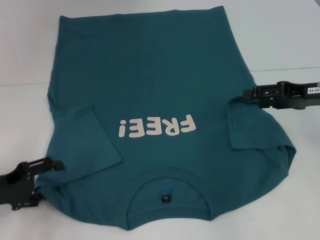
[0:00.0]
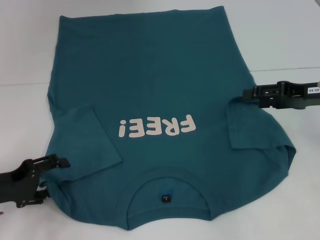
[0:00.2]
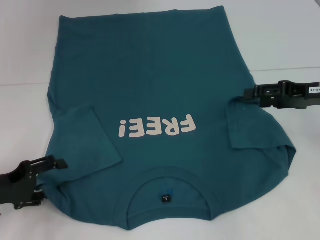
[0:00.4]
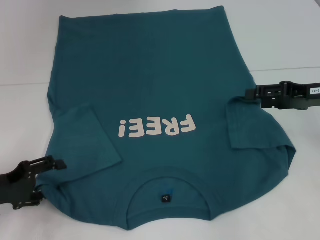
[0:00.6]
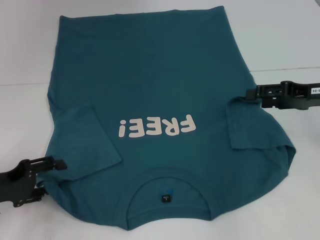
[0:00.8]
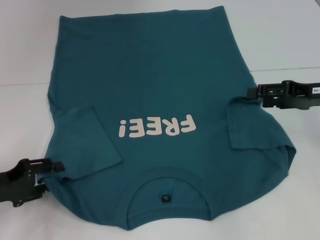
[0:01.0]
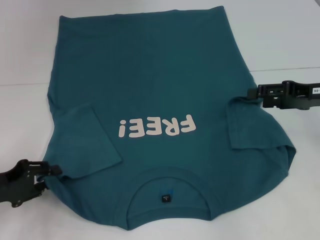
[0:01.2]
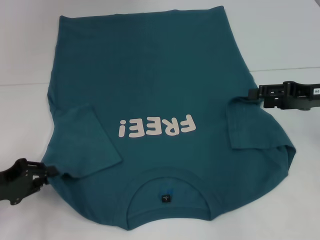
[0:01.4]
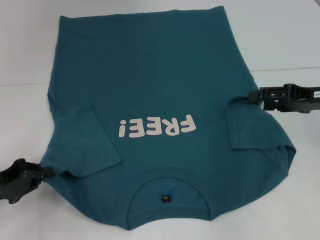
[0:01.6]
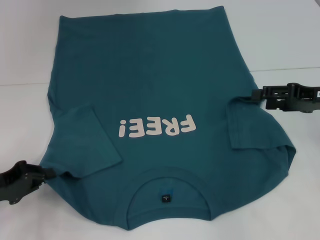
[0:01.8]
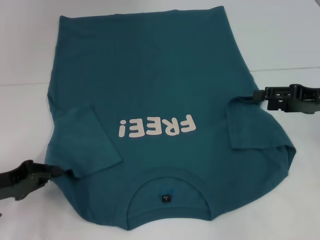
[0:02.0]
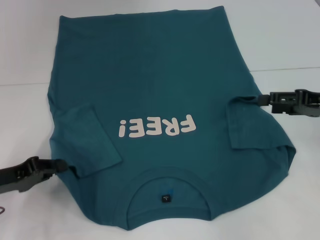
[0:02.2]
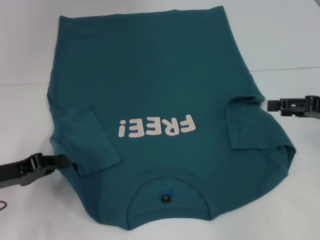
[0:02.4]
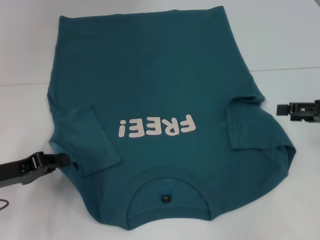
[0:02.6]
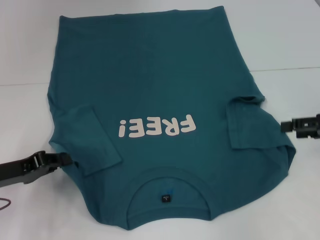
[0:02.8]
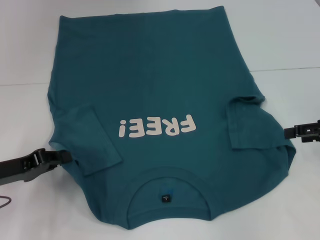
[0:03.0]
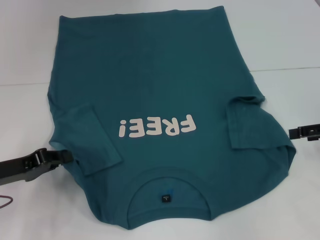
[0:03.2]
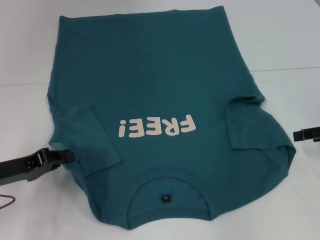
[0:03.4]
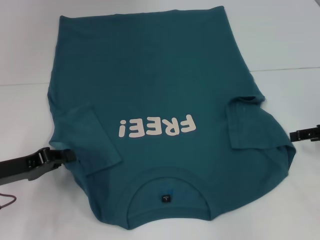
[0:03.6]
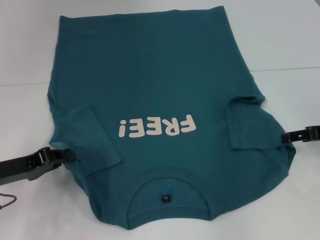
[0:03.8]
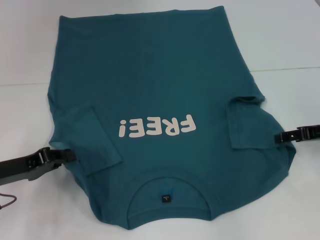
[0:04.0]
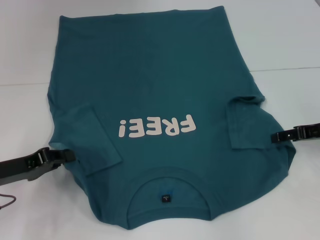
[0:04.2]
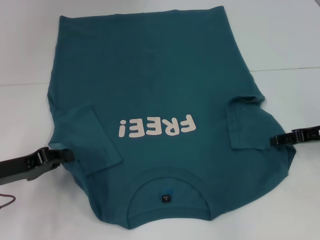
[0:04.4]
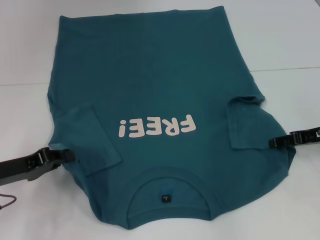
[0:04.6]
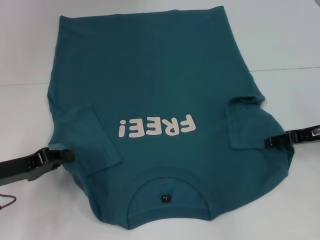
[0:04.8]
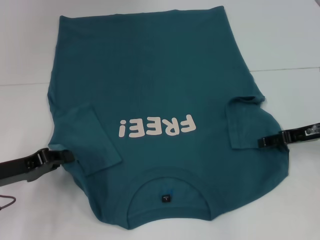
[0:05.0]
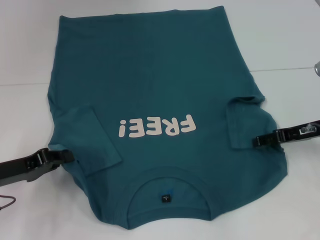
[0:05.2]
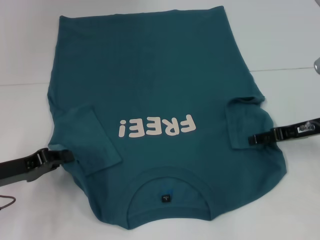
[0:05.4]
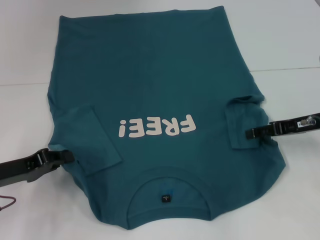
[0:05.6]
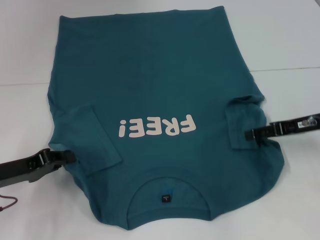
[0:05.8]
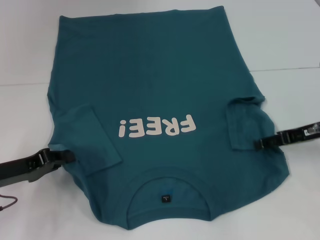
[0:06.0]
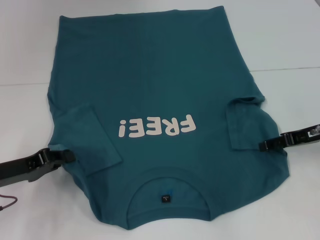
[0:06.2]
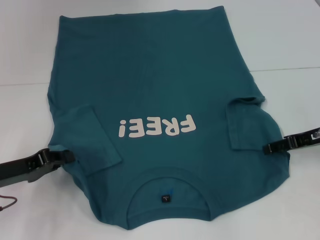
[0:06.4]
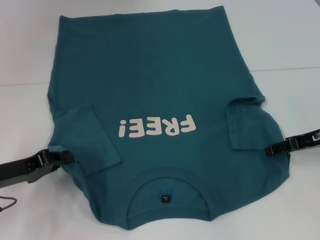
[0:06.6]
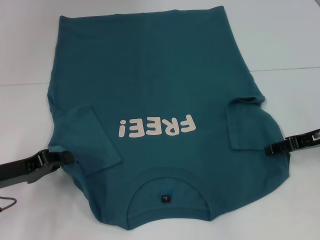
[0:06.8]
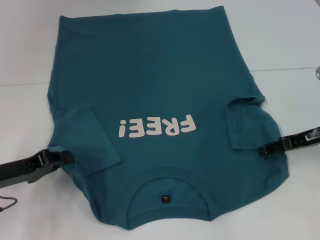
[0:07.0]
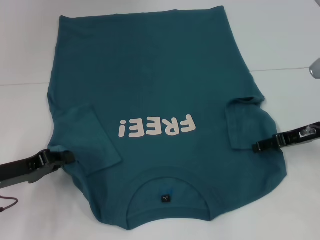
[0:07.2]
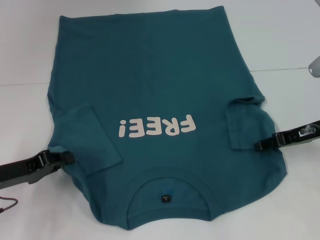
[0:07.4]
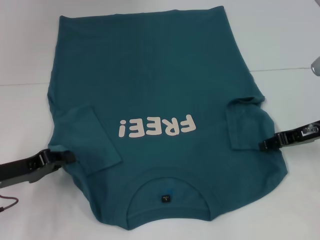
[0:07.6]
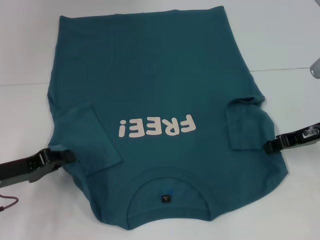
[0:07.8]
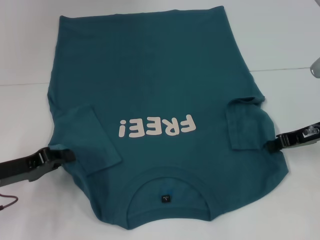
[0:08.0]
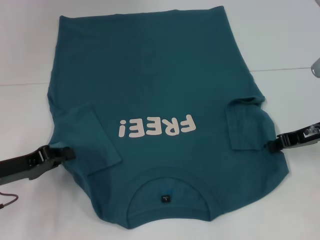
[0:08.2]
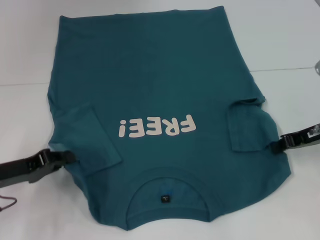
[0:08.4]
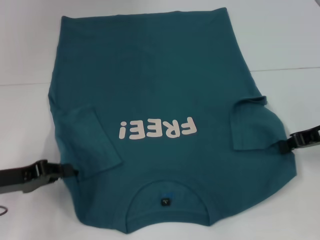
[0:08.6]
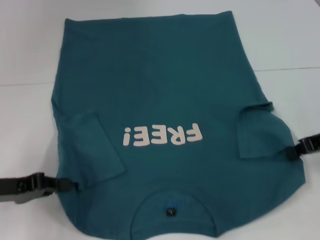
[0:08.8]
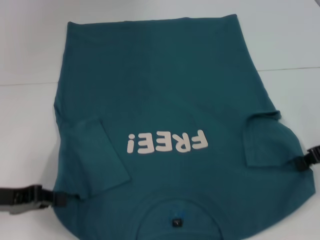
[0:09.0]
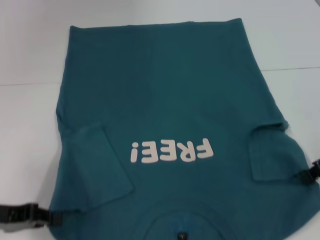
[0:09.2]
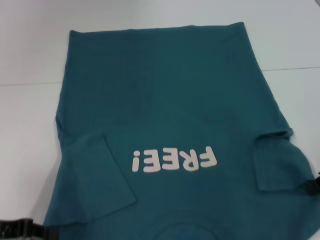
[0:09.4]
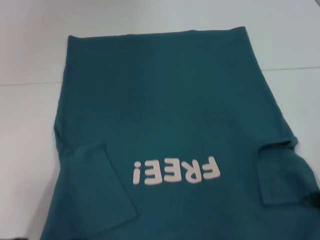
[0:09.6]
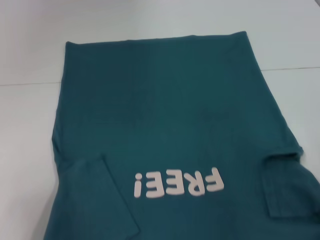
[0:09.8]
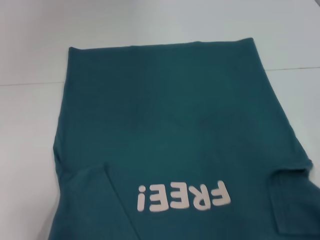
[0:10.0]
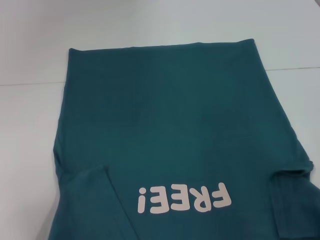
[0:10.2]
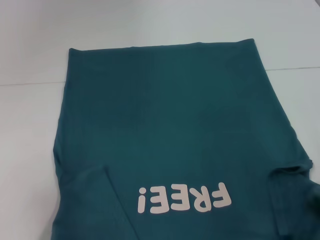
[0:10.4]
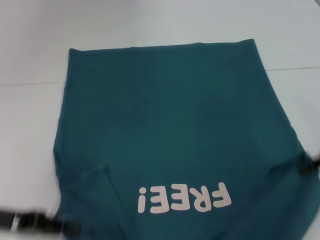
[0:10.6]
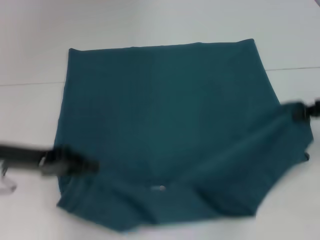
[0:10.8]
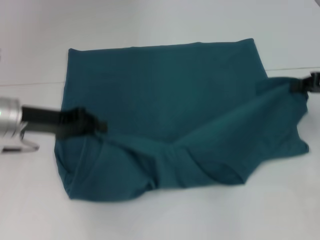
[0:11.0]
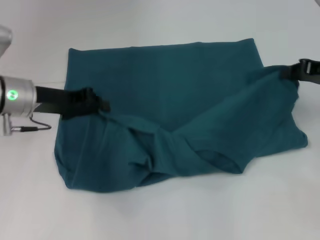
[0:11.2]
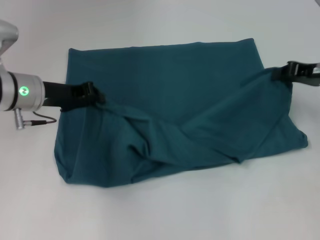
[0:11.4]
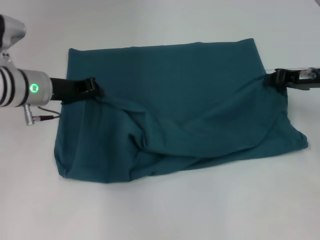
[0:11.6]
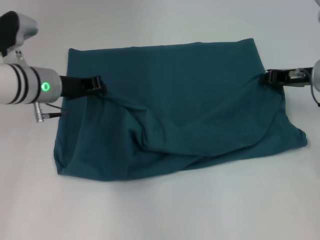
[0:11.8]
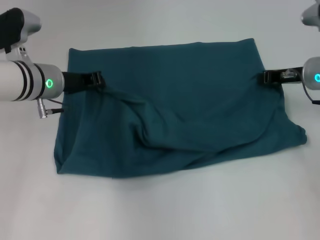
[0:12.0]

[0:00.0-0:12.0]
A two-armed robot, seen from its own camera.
Step, 0:01.6 to 0:08.4: Grab the bottom right corner with your right hand.
0:00.0 to 0:01.6: The left gripper closes.
0:01.6 to 0:03.0: The right gripper moves some 5 cm.
0:03.0 to 0:04.4: The right gripper changes place by about 5 cm.
0:04.4 to 0:06.0: The grippers move only a little.
0:06.0 to 0:07.6: The two grippers keep their place.
0:07.6 to 0:09.0: The right gripper moves approximately 5 cm, and closes.
0:09.0 to 0:10.4: The left gripper goes approximately 5 cm backward. Meanwhile the right gripper ends up about 5 cm from where it was.
0:10.4 to 0:12.0: The left gripper travels forward and to the right by about 25 cm. The right gripper moves forward and to the left, approximately 15 cm.

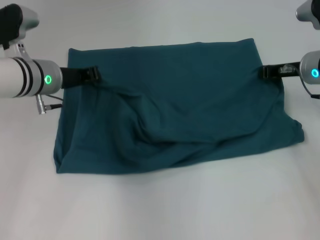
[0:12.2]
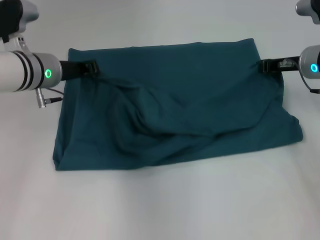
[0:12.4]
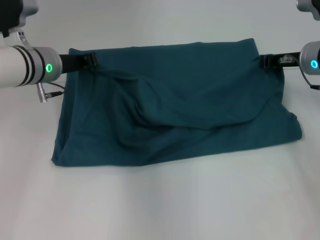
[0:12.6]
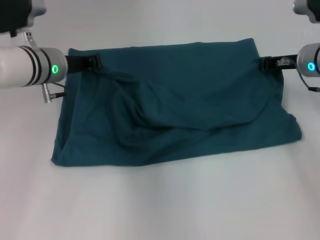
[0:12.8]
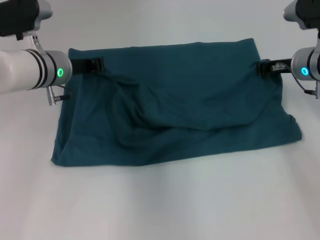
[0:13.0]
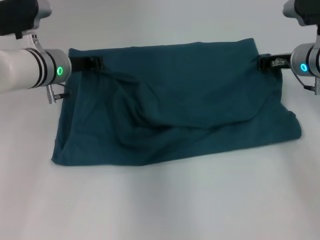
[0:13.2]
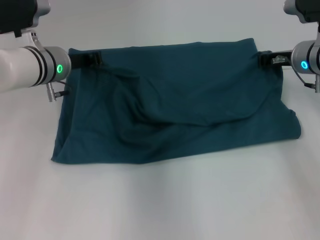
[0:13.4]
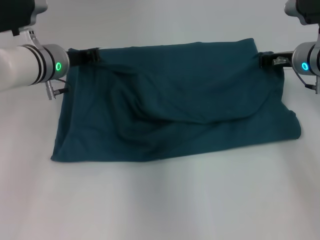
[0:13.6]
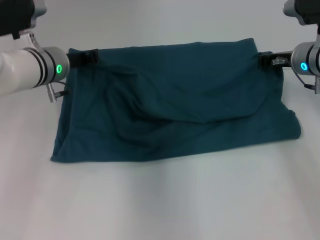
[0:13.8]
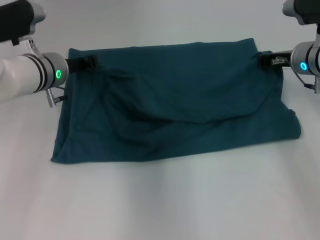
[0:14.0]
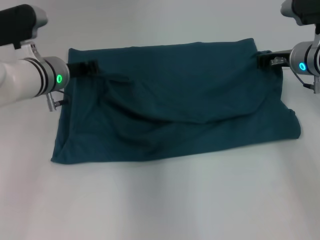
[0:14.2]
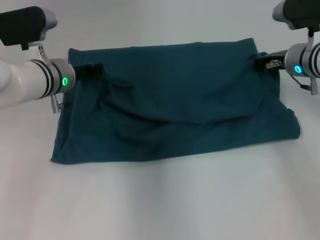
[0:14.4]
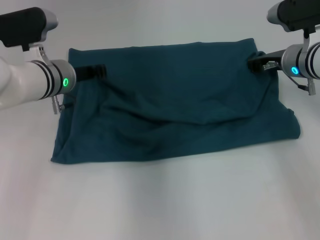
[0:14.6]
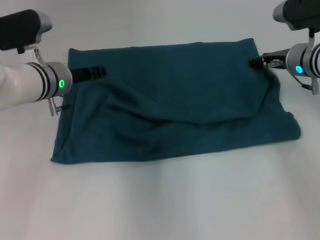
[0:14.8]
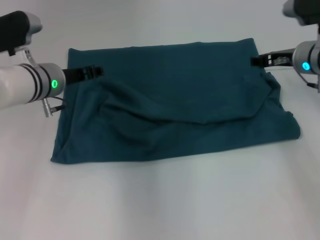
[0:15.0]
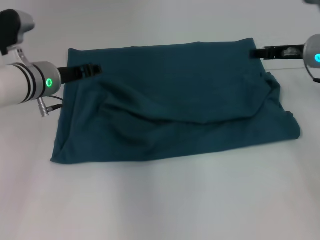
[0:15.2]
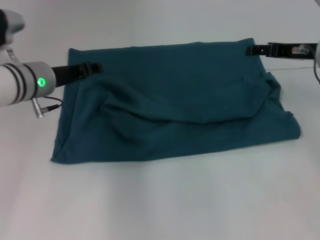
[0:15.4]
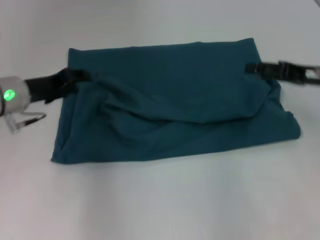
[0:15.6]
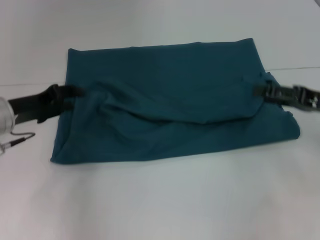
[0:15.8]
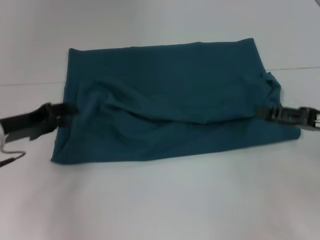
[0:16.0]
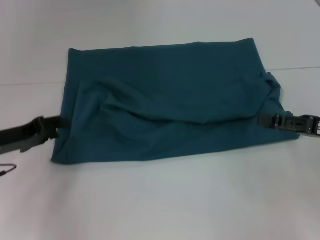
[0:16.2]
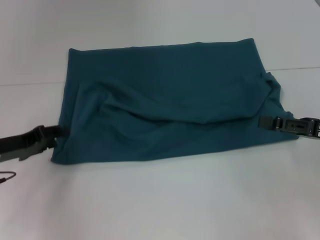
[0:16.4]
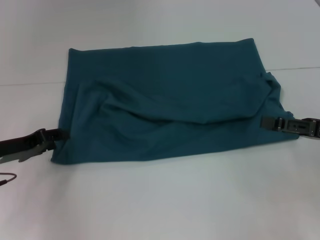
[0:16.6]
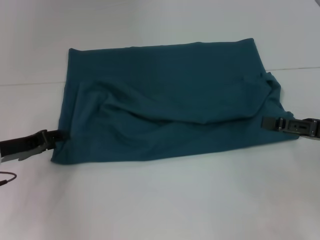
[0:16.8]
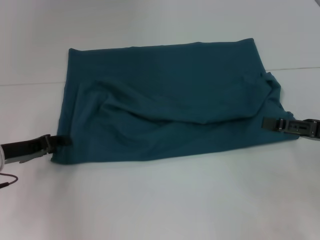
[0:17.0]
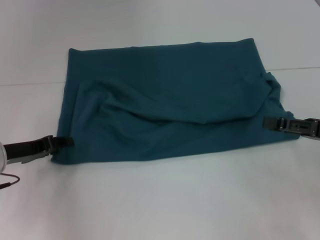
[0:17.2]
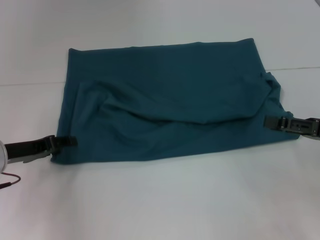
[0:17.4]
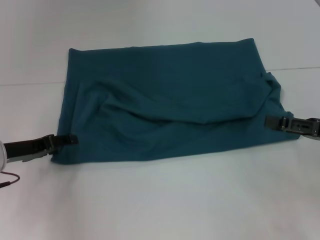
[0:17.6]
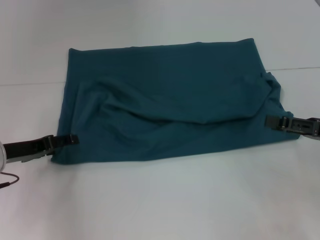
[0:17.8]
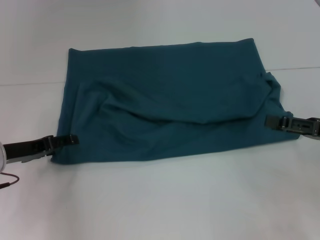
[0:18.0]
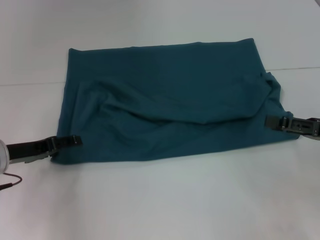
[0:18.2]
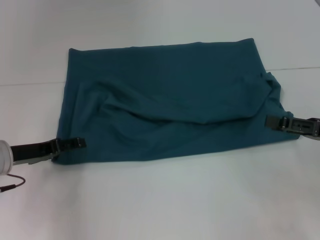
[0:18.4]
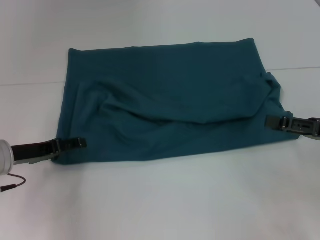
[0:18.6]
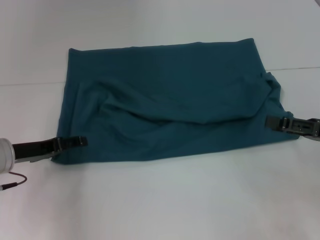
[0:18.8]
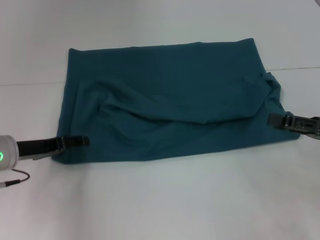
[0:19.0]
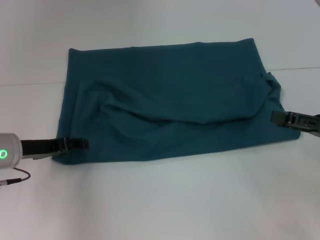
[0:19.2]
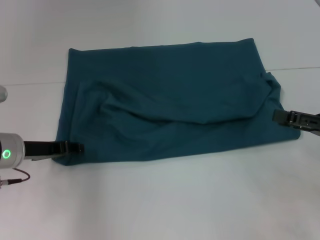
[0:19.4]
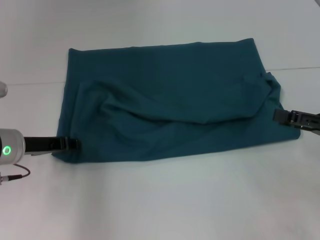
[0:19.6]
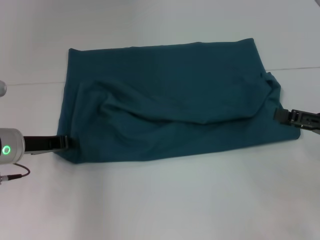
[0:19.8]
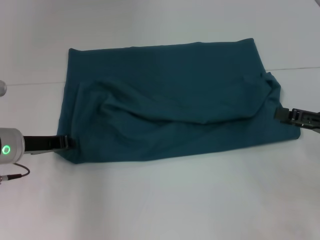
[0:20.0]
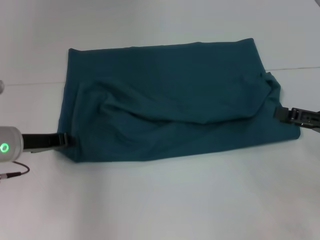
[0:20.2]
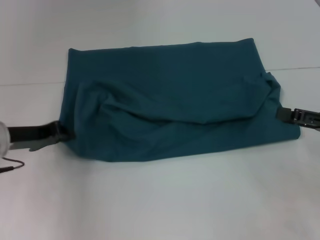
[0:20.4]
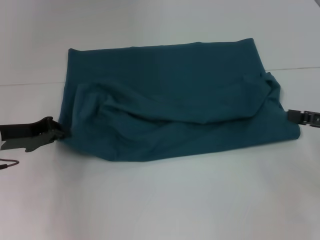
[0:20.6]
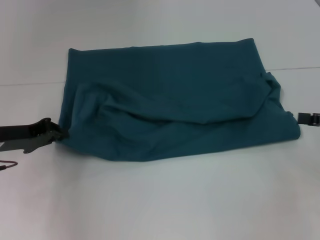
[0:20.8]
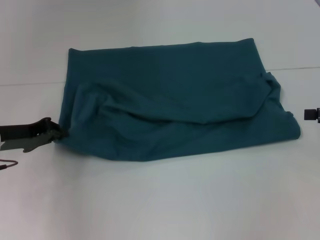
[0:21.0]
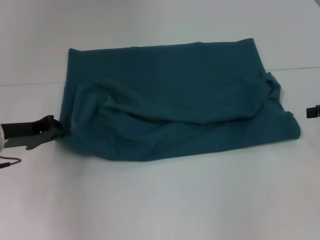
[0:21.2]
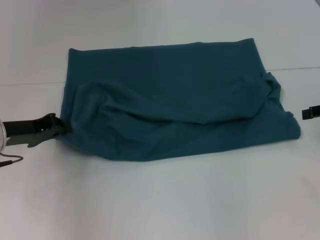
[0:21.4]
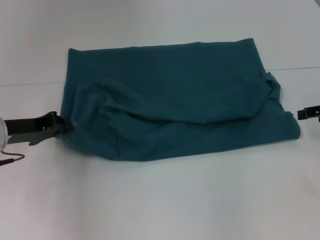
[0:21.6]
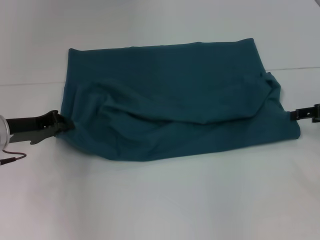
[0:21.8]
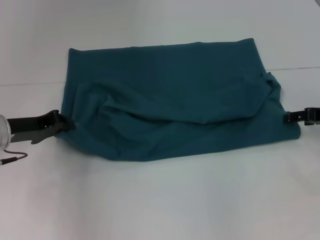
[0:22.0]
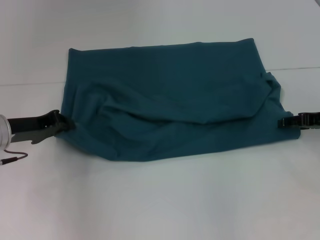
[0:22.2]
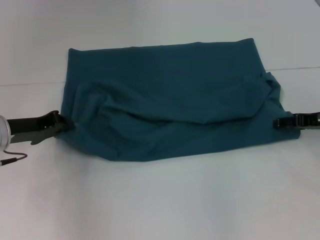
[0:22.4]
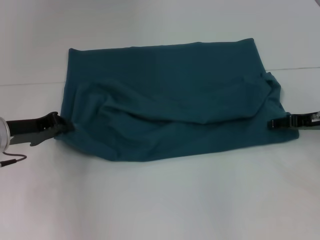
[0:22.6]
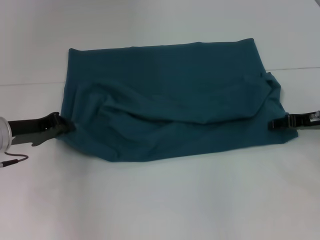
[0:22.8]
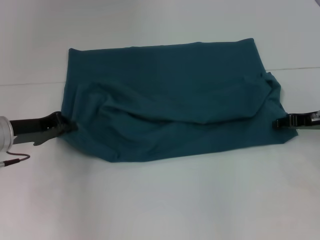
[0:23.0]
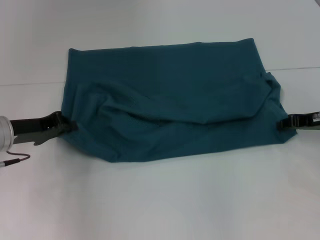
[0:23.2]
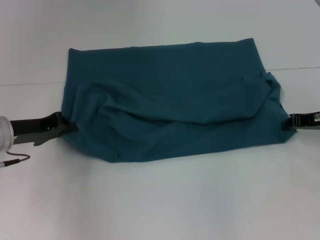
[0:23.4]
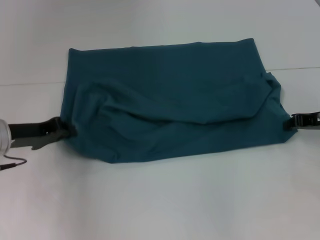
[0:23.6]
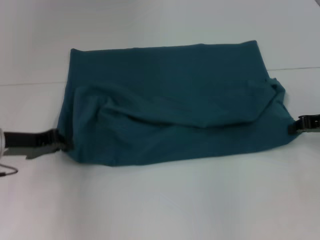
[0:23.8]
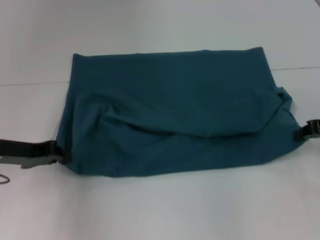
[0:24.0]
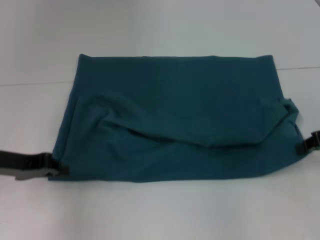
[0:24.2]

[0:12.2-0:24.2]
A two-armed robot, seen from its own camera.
Step, 0:12.2 to 0:15.6: Fold the clothes to the left.
Step, 0:12.2 to 0:15.6: Fold the clothes to the right.
0:12.2 to 0:13.8: There are only small adjustments of the grippers.
0:13.8 to 0:15.2: The right gripper opens; the left gripper opens its fingers.
0:15.2 to 0:16.6: The right gripper travels backward by roughly 15 cm. Meanwhile the left gripper goes approximately 15 cm to the left, backward and downward.
0:16.6 to 0:18.2: The left gripper opens its fingers.
0:18.2 to 0:19.8: The left gripper closes.
0:19.8 to 0:21.2: The right gripper heads forward, covering some 5 cm.
0:21.2 to 0:22.6: The right gripper moves to the left and downward, roughly 10 cm.
0:22.6 to 0:24.2: The right gripper ends up about 5 cm from where it was, and closes up.
